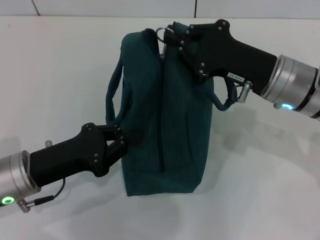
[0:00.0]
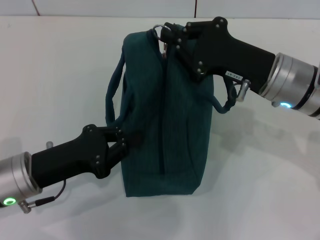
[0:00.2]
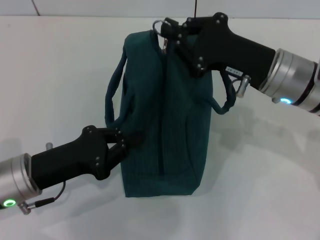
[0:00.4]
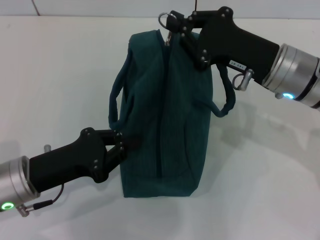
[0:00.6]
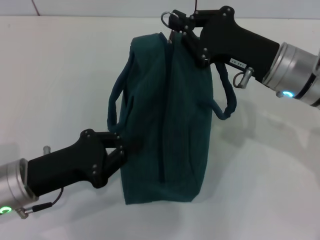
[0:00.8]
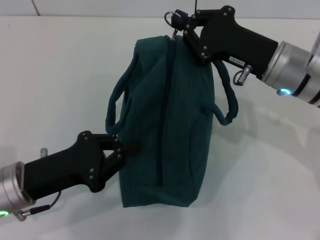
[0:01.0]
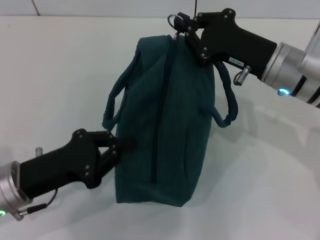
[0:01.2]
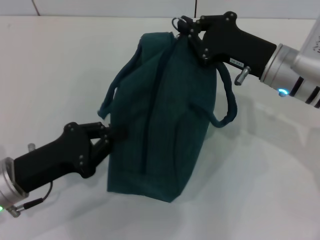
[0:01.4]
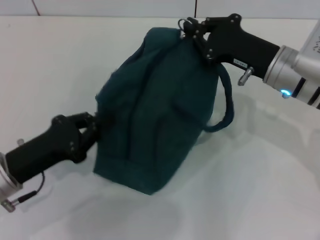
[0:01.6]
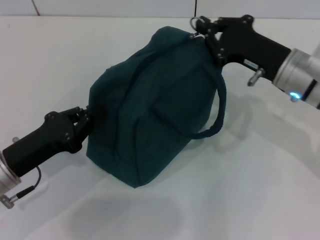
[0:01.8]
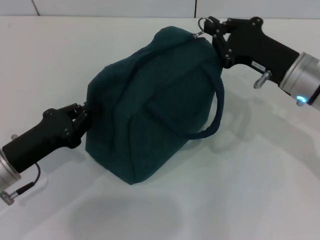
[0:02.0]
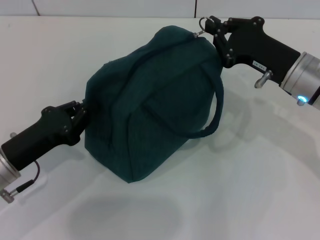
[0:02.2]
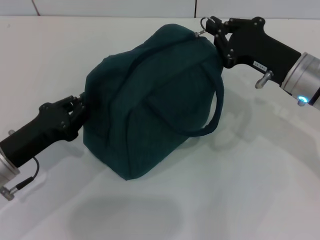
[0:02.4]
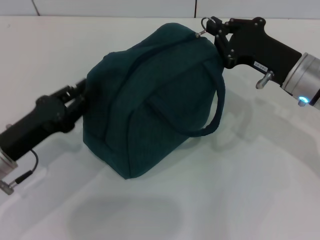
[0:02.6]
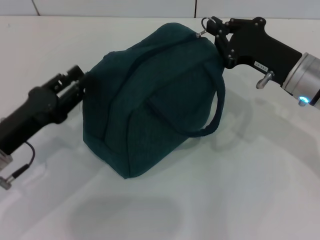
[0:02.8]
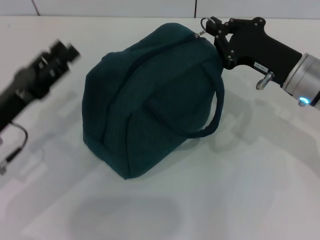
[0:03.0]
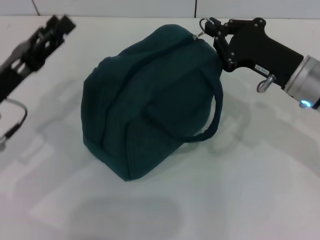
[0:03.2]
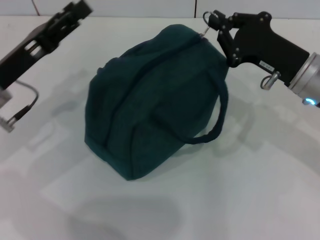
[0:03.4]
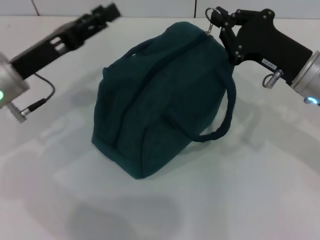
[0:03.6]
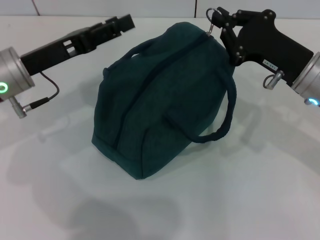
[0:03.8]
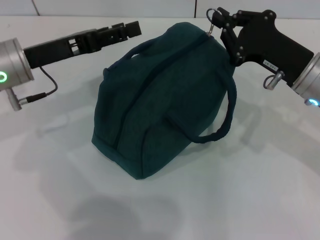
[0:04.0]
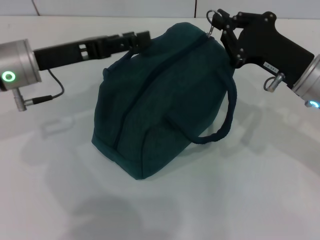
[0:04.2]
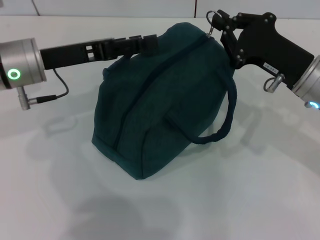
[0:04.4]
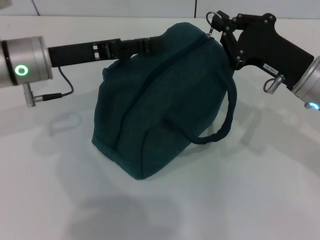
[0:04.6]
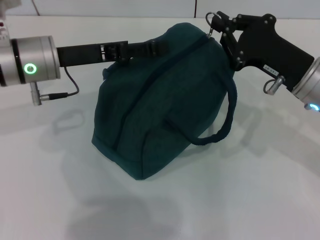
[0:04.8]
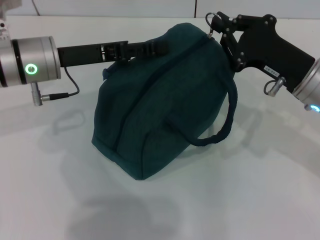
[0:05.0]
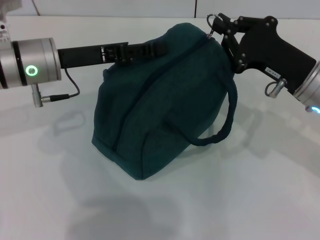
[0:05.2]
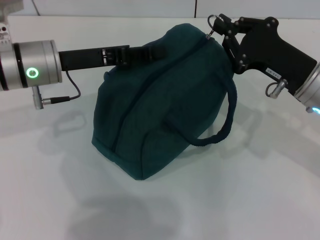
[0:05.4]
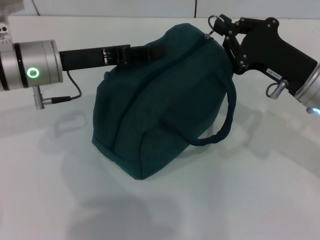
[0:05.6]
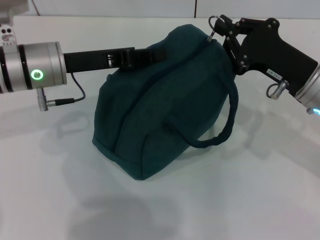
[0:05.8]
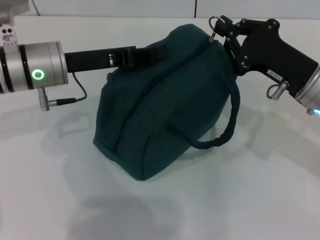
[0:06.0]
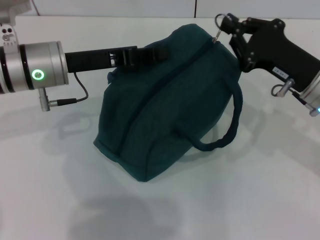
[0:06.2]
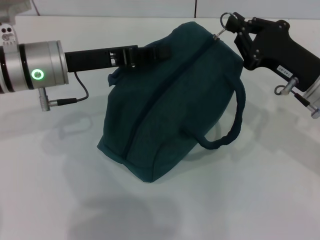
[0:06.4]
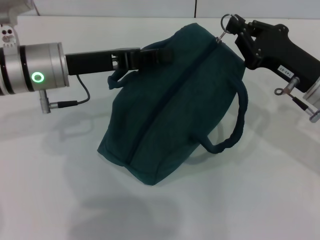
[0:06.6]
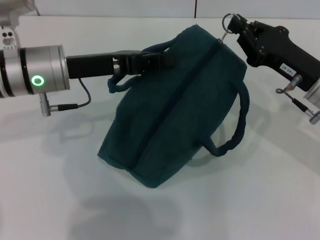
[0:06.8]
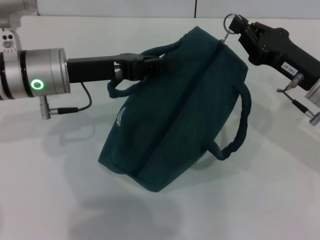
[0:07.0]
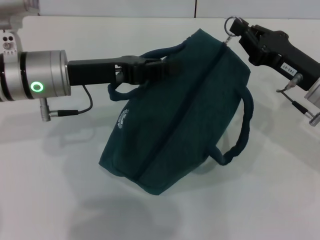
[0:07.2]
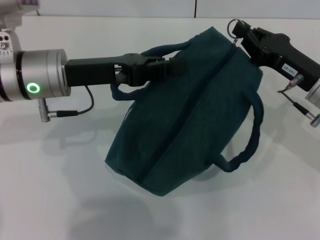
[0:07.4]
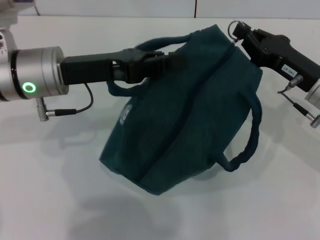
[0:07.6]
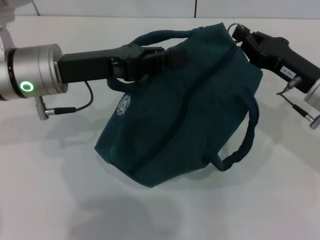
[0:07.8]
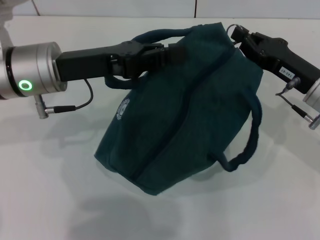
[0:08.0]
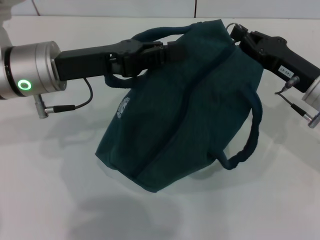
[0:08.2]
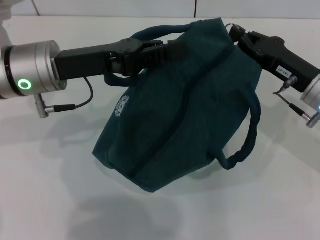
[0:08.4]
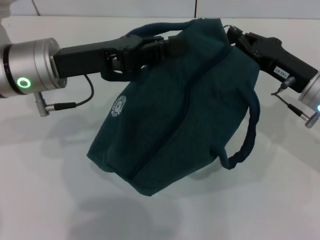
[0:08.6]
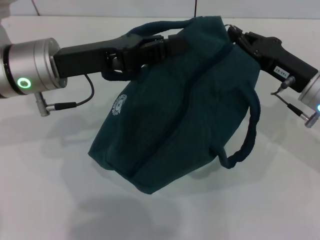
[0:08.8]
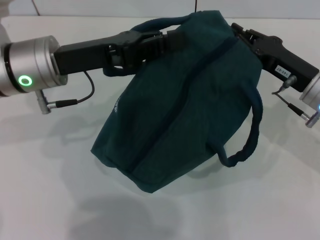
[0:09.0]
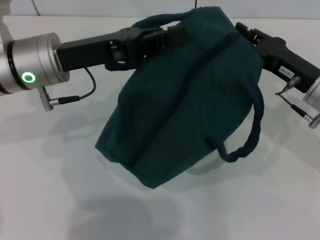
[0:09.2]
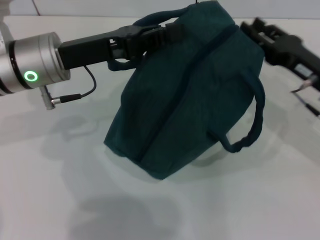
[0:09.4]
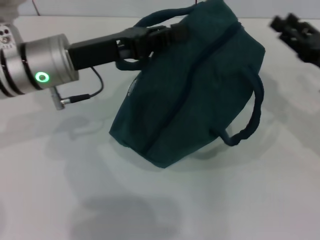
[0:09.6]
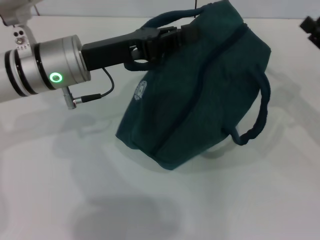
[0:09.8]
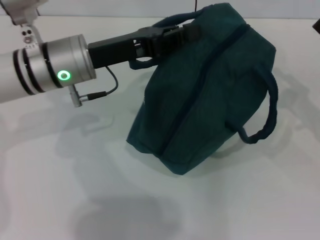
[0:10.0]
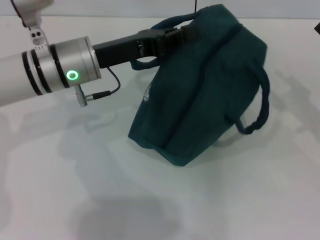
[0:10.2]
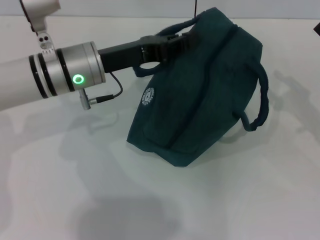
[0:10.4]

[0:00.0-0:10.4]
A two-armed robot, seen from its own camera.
Step, 0:00.0 to 0:09.4: Zip up the lunch bag with your right hand.
0:00.0 to 0:01.4: The grippers move only a little.
0:03.0 to 0:04.4: The left gripper shifts about 15 cm forward and upward, and opens up.
0:04.4 to 0:06.0: The left gripper closes its fingers.
0:09.0 to 0:10.4: The right gripper shifts some 10 cm to the right, and opens its fingers, while the left gripper changes place by about 5 cm.

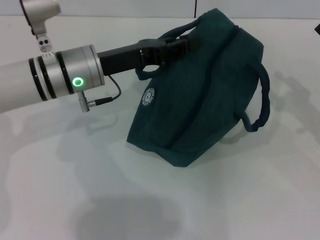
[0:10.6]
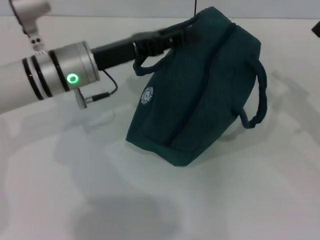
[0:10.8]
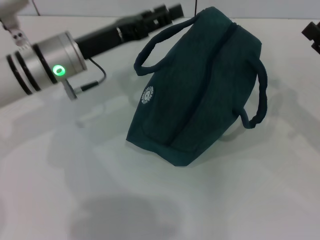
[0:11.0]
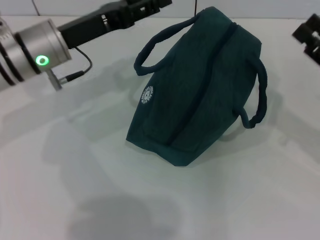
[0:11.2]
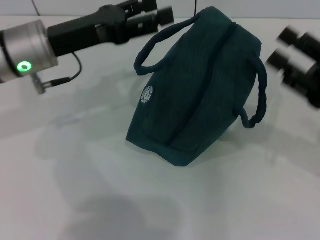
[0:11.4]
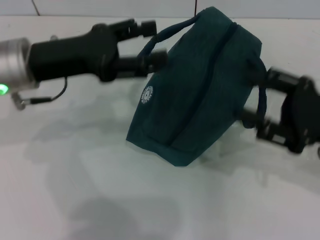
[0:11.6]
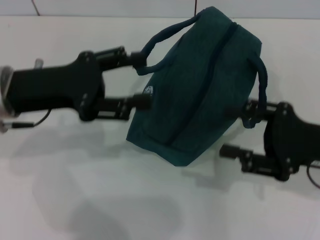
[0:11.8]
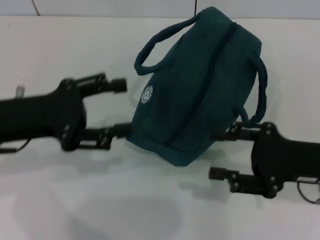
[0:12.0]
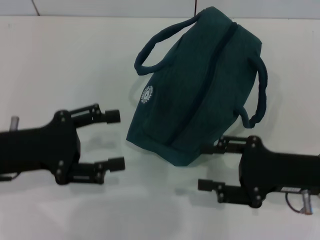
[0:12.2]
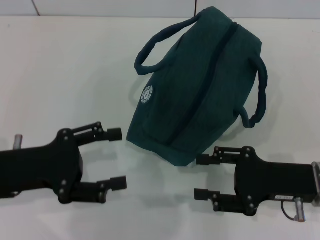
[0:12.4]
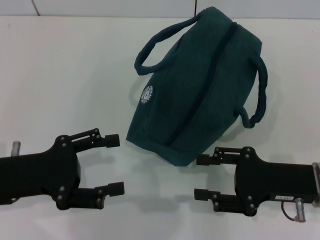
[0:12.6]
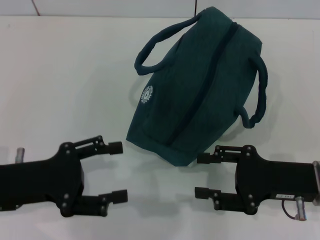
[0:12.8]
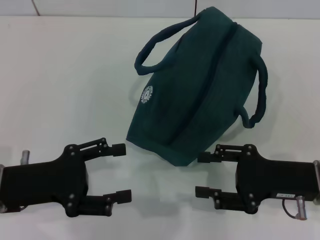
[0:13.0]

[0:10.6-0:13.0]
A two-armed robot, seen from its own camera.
0:10.6 to 0:11.8: The right gripper travels to the left by about 5 cm, while the left gripper is displaced to the left and backward by some 10 cm, and opens up.
0:11.8 to 0:13.0: The left gripper moves backward and downward, roughly 10 cm.
